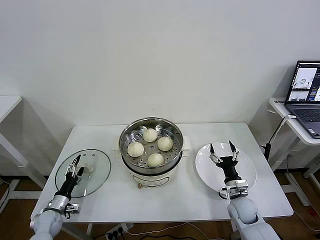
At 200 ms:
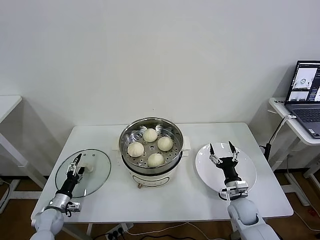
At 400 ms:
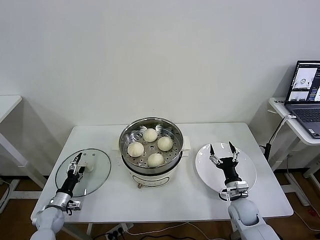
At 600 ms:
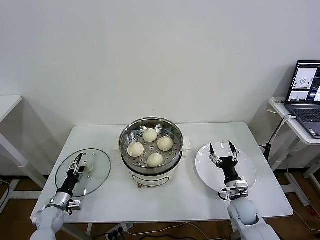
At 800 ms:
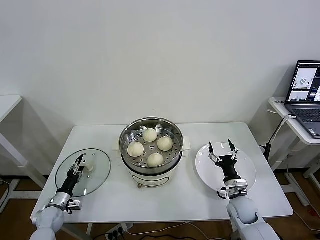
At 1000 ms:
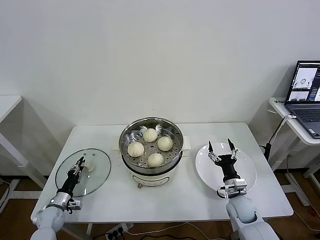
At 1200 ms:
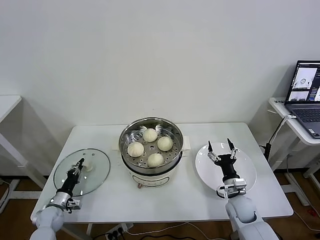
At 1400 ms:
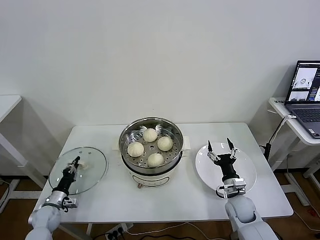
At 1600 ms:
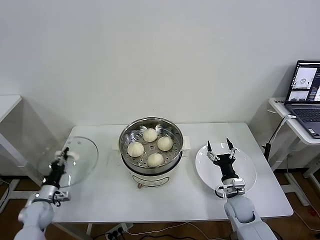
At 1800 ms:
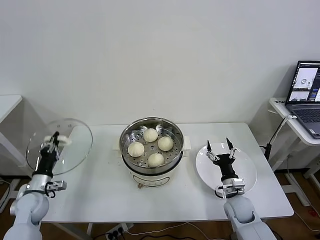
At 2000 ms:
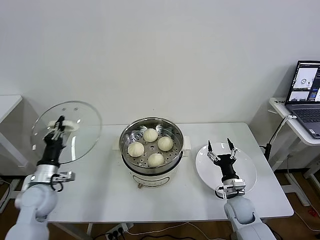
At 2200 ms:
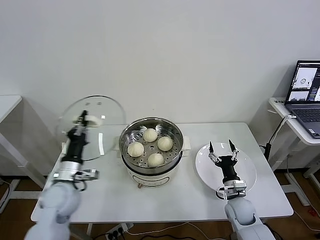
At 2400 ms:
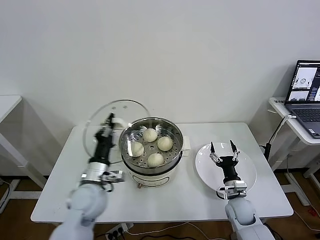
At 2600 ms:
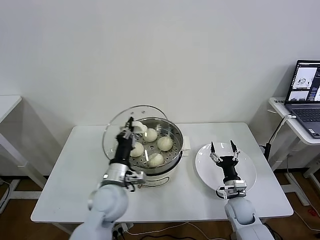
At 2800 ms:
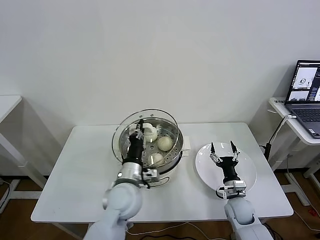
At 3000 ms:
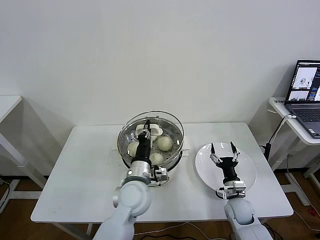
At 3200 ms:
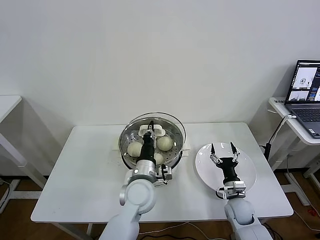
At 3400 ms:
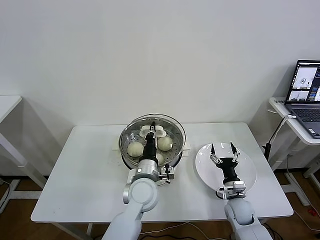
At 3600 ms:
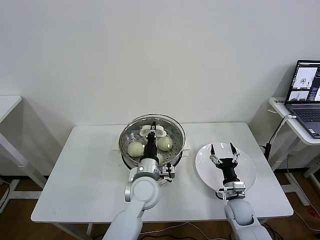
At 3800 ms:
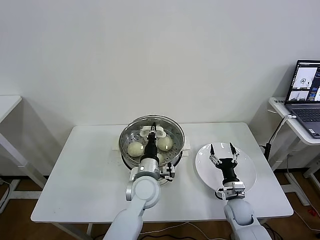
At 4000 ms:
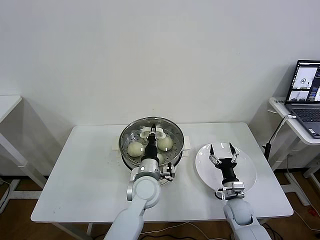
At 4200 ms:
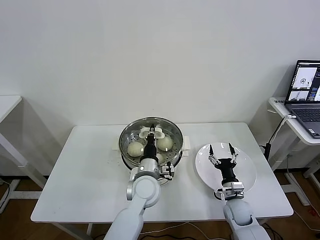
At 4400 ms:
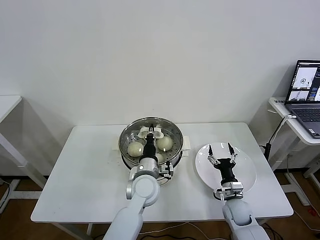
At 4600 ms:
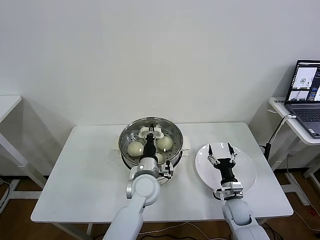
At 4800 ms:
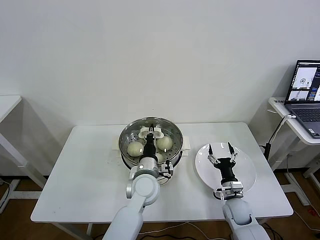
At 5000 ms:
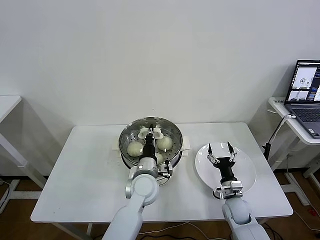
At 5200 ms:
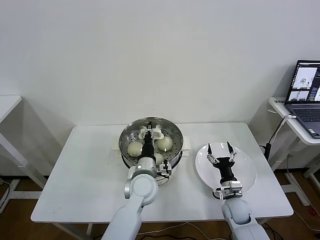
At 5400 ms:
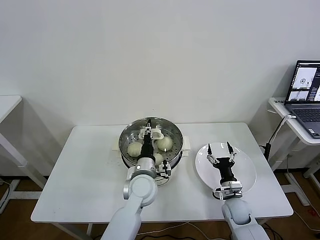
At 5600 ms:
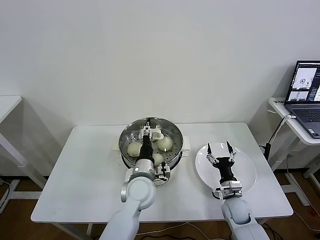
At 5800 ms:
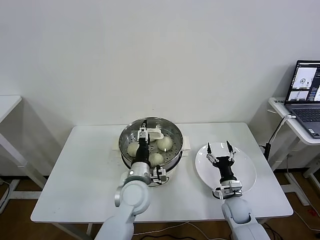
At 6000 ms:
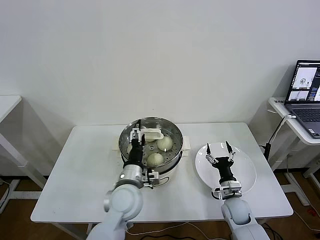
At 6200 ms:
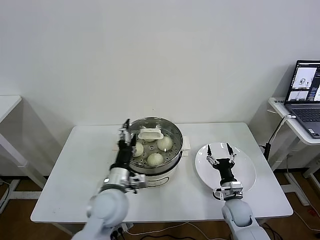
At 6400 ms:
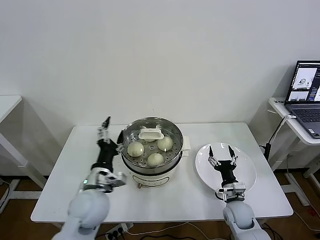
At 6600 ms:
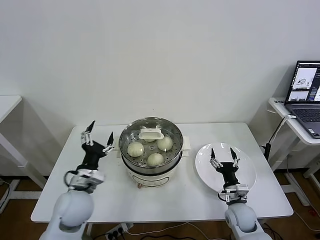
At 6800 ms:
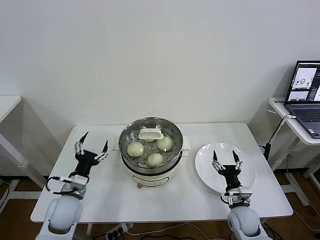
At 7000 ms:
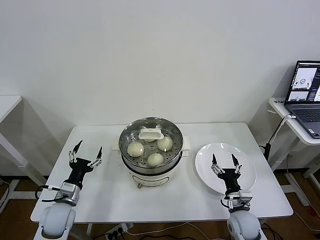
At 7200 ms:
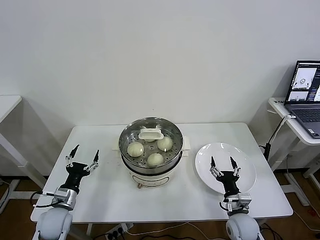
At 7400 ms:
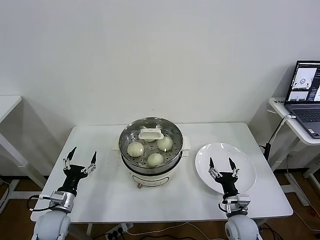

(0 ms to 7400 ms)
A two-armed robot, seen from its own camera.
Task of the whole recording: take steamed baozi put them in steamer then cover it.
Step, 1400 ms - 5600 ms: Place the pot lid on the steamer with left gripper.
0 ms - 1400 ms: The left gripper closes.
1400 ms - 3000 ms: The left gripper shifts about 40 cm to the right and upward.
3000 ms - 4400 ms: The left gripper shifts by roughly 5 cm.
4400 ms - 6000 ms: The left gripper ends up about 5 cm from where it was, and opens.
6000 ms - 7400 ms: The left gripper moves to the left and downward, roughly 30 cm. The right gripper shifts some 5 cm backward.
